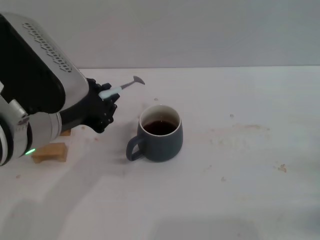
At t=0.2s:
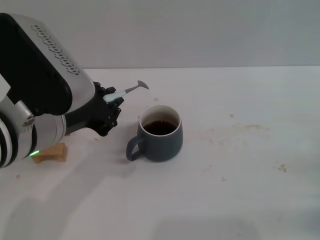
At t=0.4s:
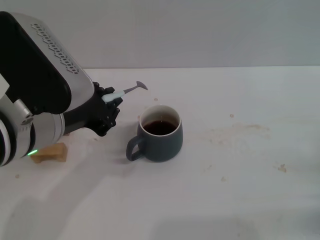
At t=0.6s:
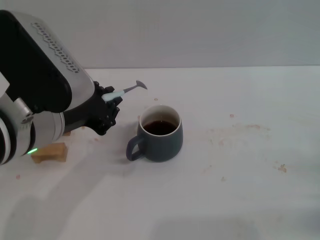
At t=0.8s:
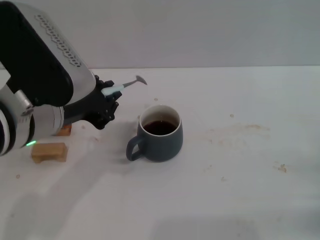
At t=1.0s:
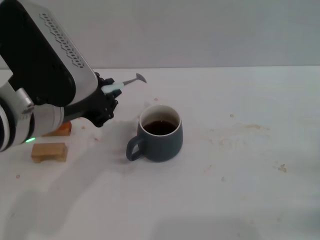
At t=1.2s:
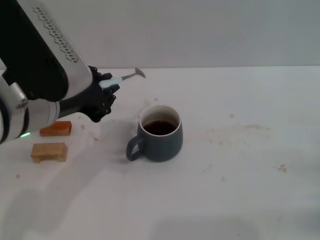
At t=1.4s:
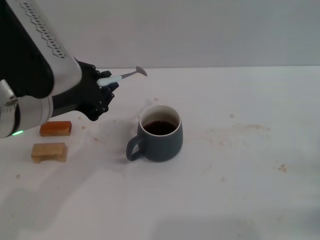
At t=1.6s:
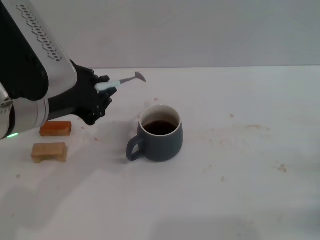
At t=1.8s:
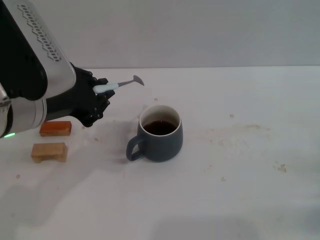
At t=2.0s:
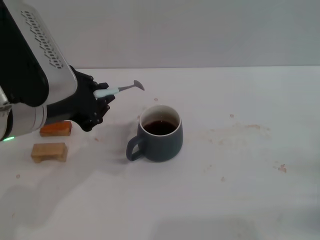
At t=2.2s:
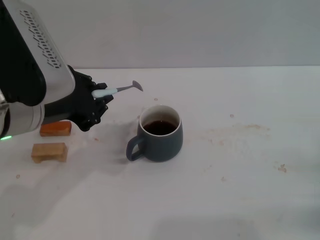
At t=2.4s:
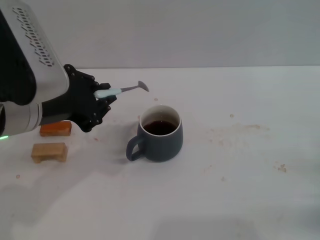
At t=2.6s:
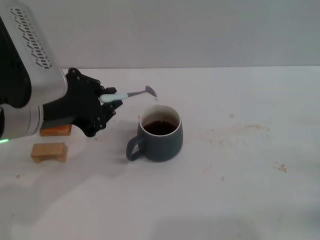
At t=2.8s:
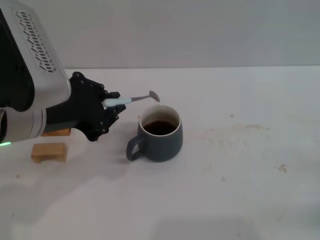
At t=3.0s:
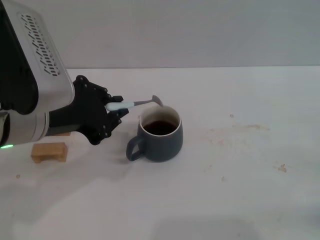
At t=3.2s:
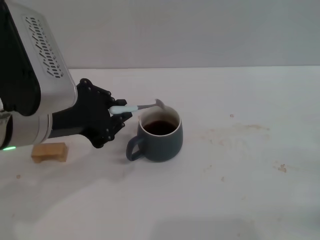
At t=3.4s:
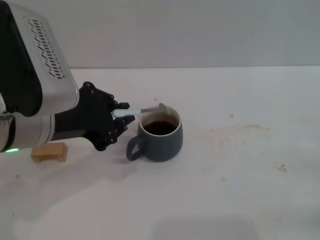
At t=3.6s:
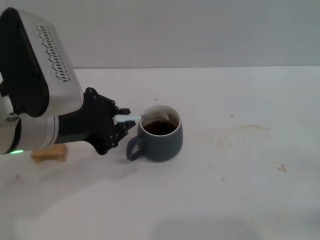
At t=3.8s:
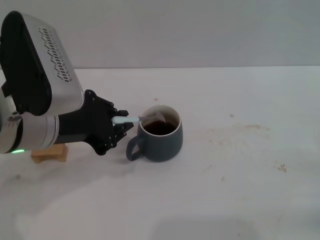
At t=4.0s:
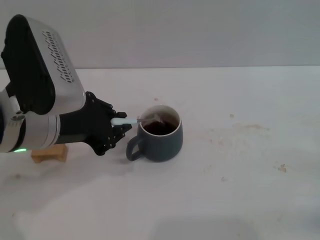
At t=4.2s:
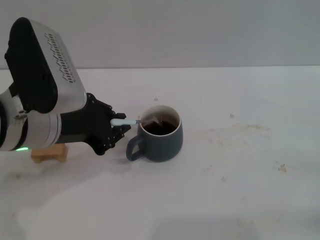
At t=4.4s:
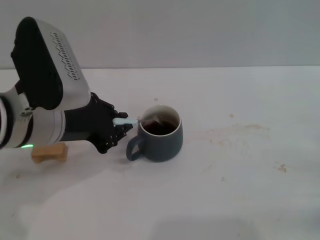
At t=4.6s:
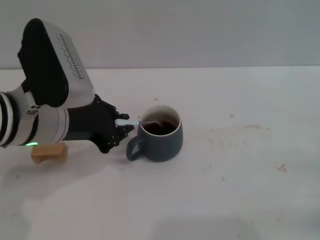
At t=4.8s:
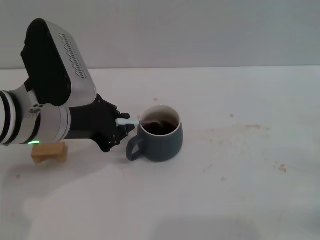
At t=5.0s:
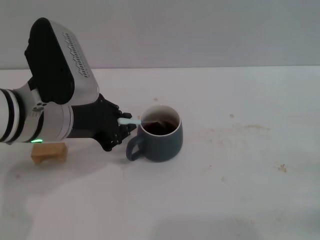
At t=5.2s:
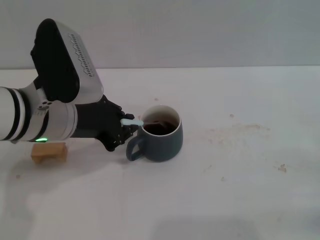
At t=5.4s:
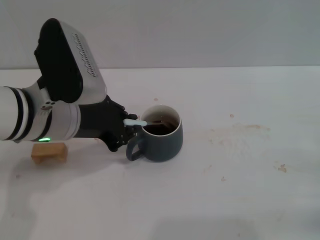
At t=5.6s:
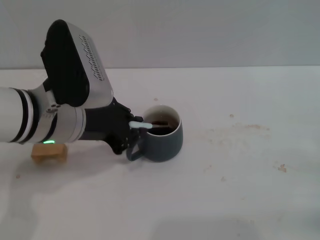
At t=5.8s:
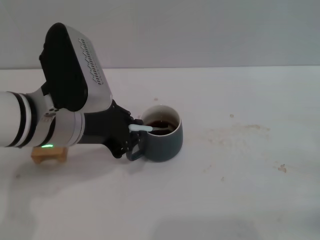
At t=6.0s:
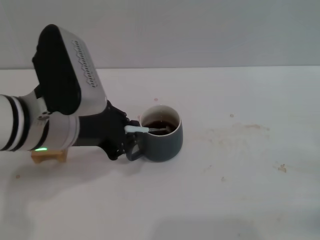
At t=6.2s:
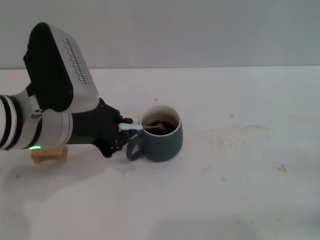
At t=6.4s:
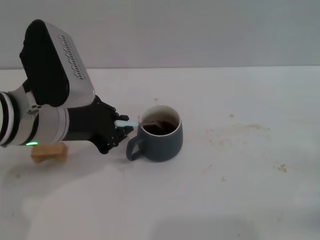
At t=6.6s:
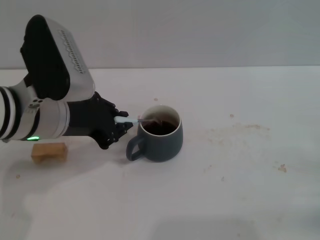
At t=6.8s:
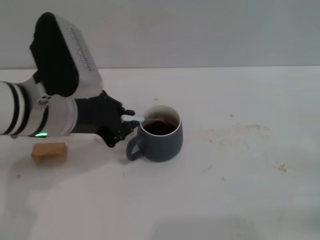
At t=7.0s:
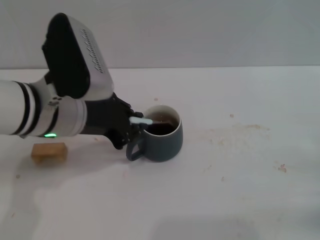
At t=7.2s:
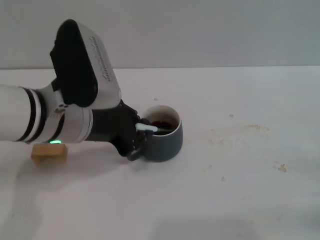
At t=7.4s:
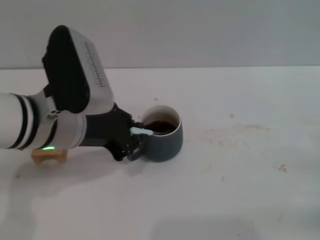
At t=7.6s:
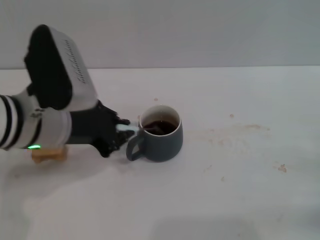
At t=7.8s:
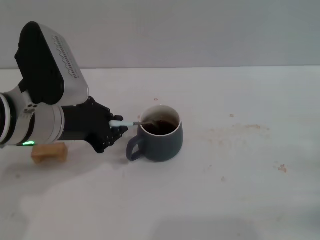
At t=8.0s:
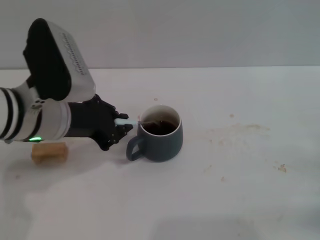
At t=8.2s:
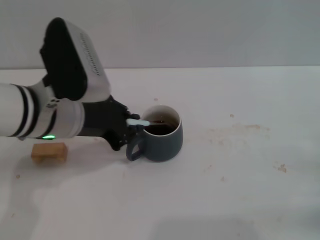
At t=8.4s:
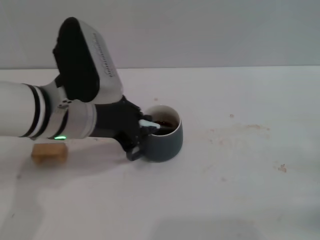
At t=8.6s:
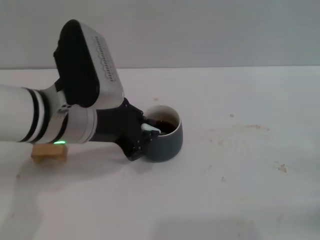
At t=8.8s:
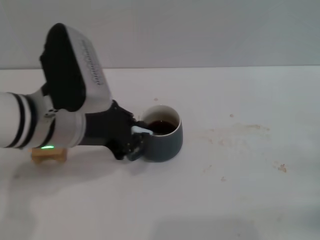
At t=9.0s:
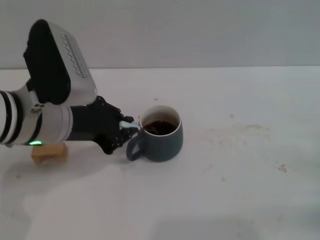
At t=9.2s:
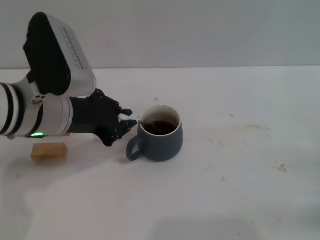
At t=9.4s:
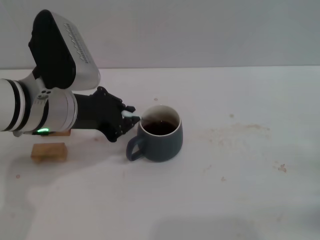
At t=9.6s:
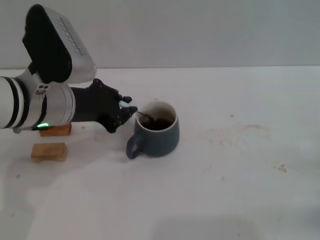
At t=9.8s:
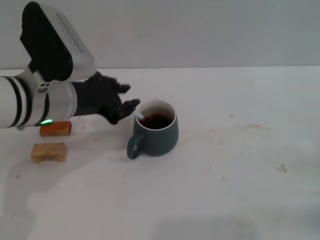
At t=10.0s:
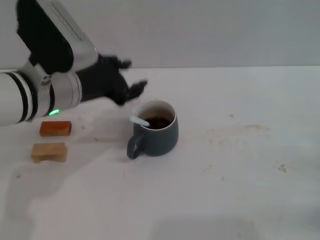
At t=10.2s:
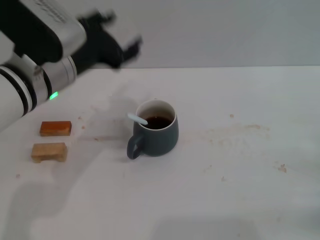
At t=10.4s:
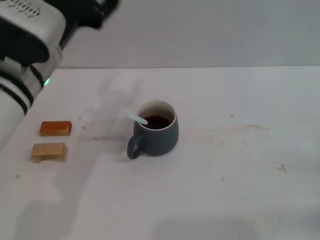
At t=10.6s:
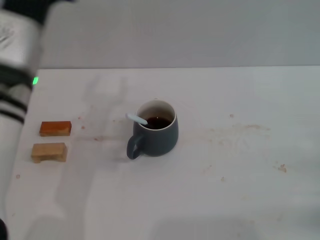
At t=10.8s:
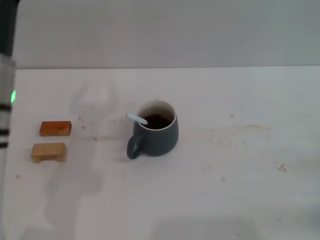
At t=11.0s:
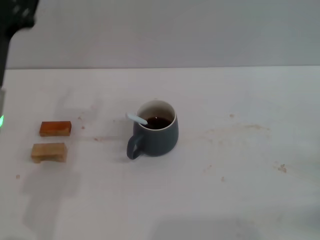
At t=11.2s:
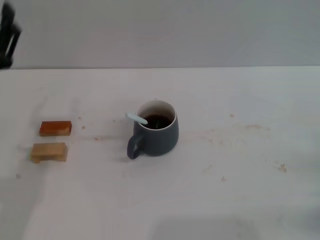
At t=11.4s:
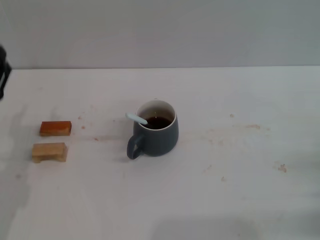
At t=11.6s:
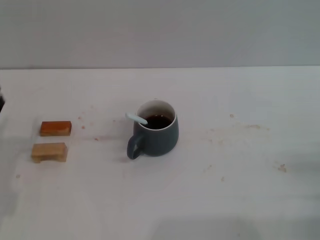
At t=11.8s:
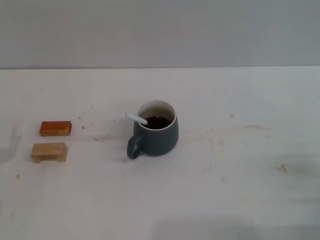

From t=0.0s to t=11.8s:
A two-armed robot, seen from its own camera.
Task of the whole recording: Move the grey cup to the center, lift the blue spoon, stir it three times in the cup, and put the spoon into the cup.
Step, from t=0.0s to t=9.8s: Stir the coffee in the cup with the left gripper.
From t=0.0s to t=4.4s: The grippers stay close to where they were, moving slightly.
From t=4.4s to t=8.8s: There are only small adjustments of the grippers.
From t=8.8s to t=10.4s: The left gripper opens up.
From t=10.4s to t=11.8s: The left gripper moves downward, to the left and backward, approximately 25 cm.
